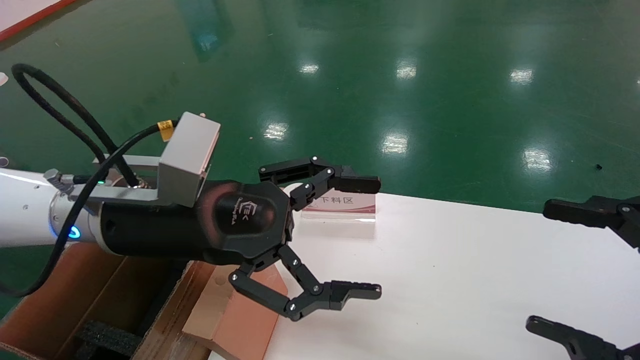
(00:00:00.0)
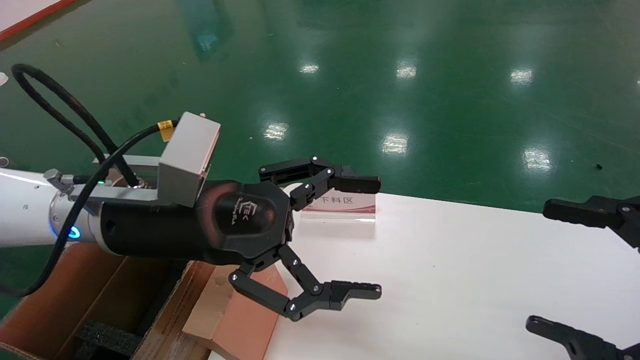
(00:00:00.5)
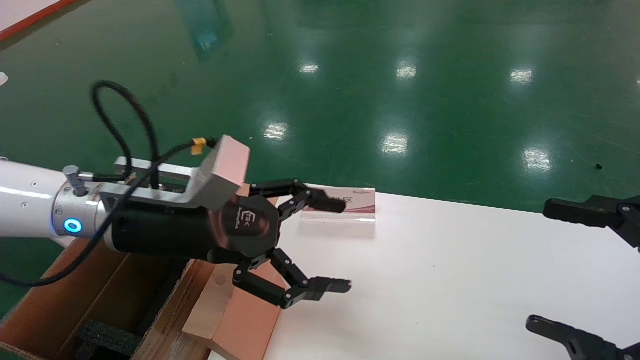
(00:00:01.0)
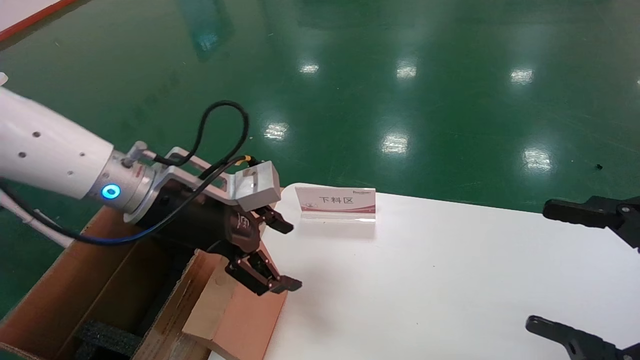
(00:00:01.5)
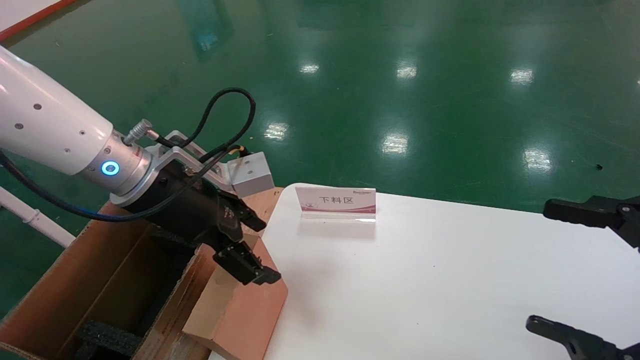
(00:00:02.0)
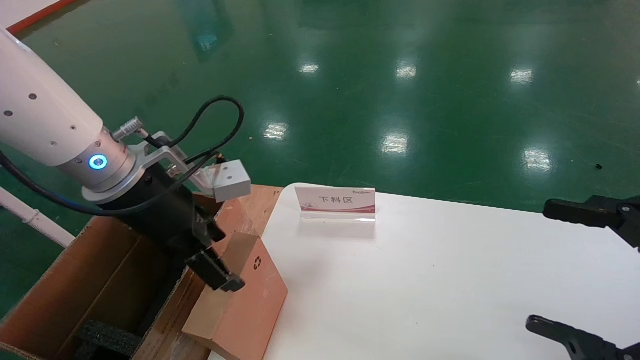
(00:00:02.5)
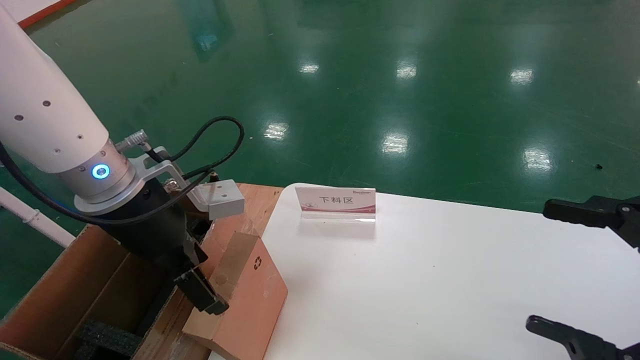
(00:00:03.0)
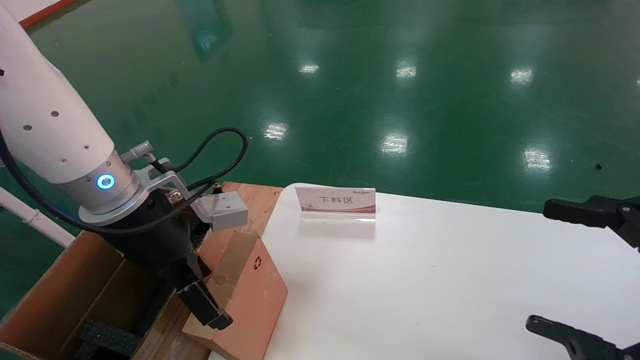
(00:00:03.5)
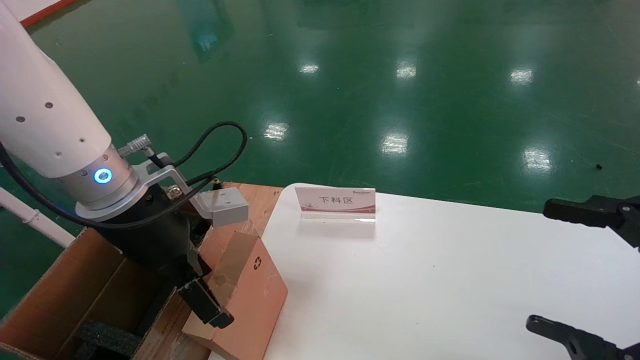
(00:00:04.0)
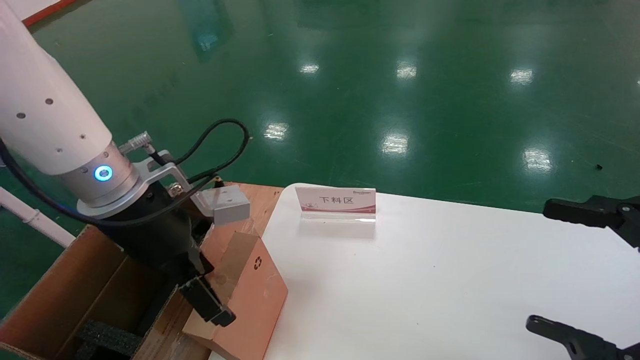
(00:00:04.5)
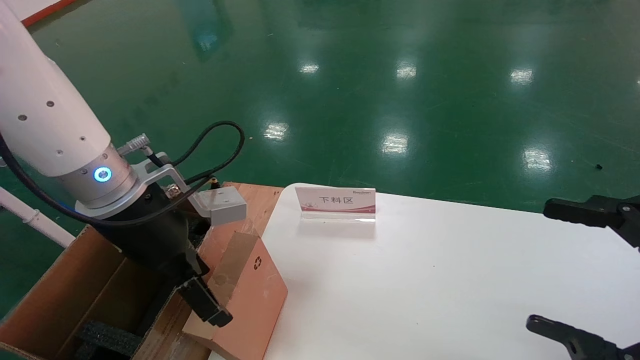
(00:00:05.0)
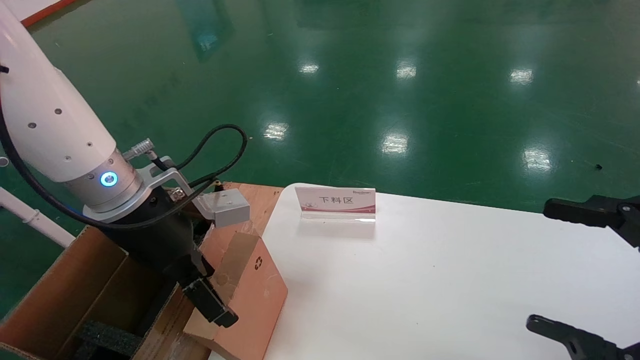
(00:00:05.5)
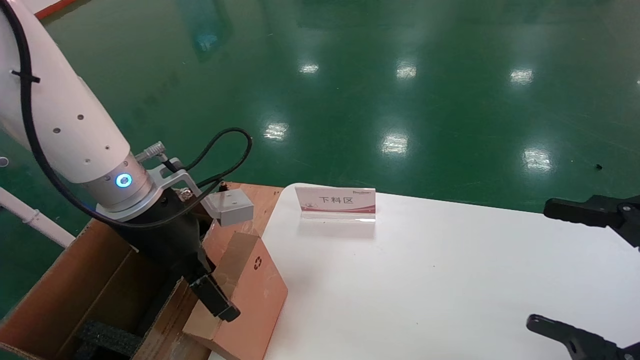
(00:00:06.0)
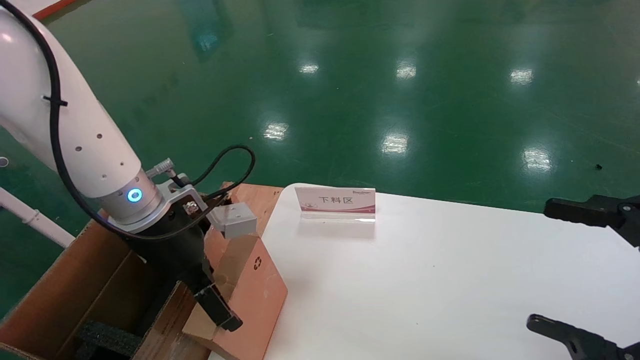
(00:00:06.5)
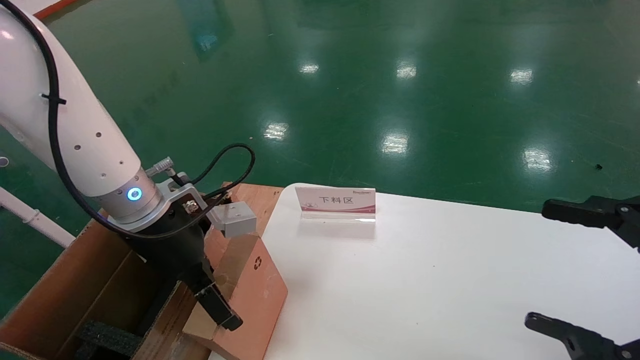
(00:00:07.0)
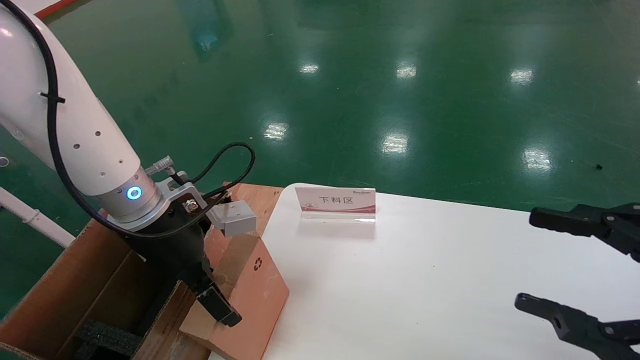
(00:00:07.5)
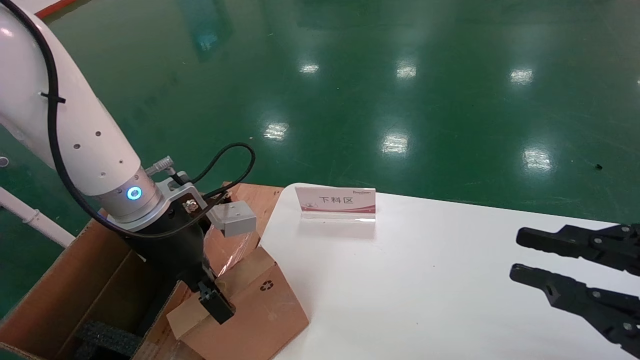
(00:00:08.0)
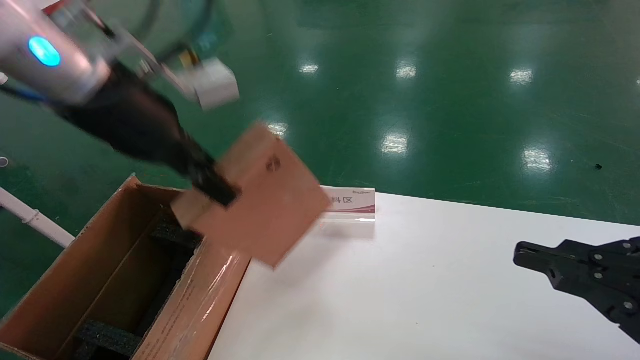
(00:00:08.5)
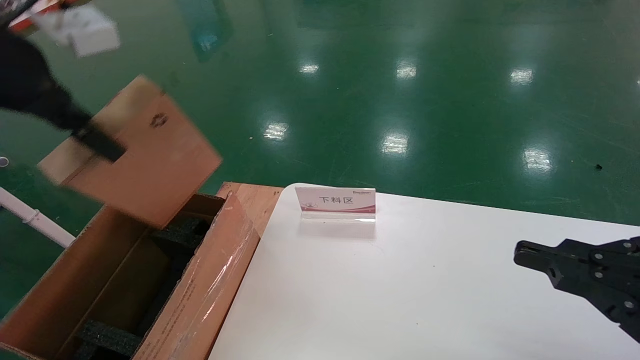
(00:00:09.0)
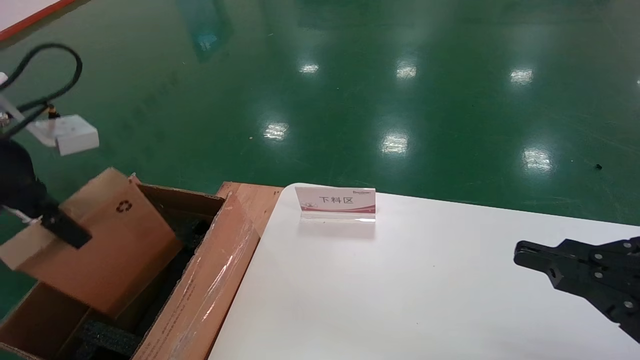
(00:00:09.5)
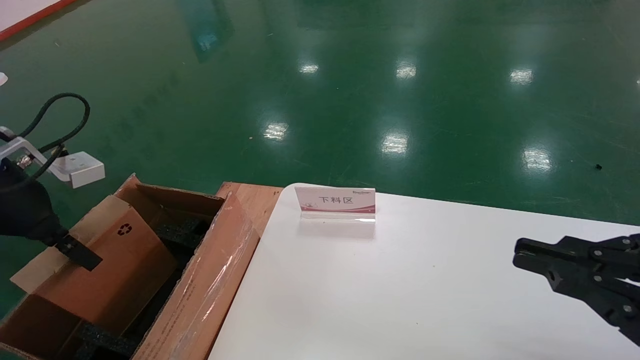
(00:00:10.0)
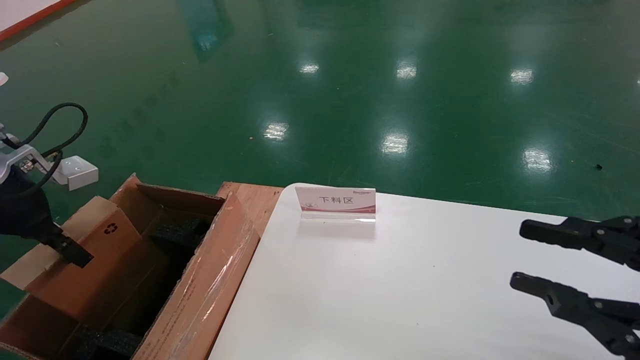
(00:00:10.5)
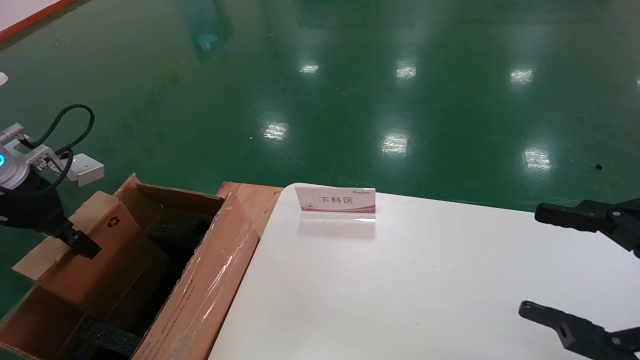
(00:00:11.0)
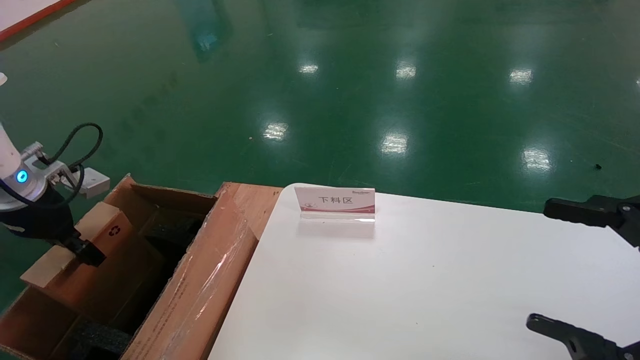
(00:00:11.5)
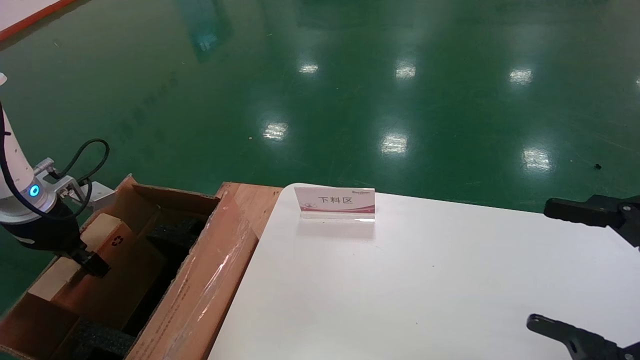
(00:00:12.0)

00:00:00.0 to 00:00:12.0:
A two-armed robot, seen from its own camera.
Task of the whole recording: pick up the small cardboard box and load it into the large cardboard box.
Step, 00:00:01.5 to 00:00:08.5: Pick up the mouse and power cord box.
00:00:00.0 to 00:00:02.0: The left gripper shifts approximately 5 cm forward.
00:00:04.0 to 00:00:06.0: The grippers stay close to where they were, moving slightly.
00:00:06.0 to 00:00:08.0: The right gripper closes its fingers. Meanwhile the left gripper closes up.
00:00:08.0 to 00:00:10.0: The left gripper is displaced to the left by approximately 15 cm.
00:00:10.0 to 00:00:12.0: The right gripper opens its fingers; the left gripper is displaced downward, forward and to the left by roughly 15 cm.

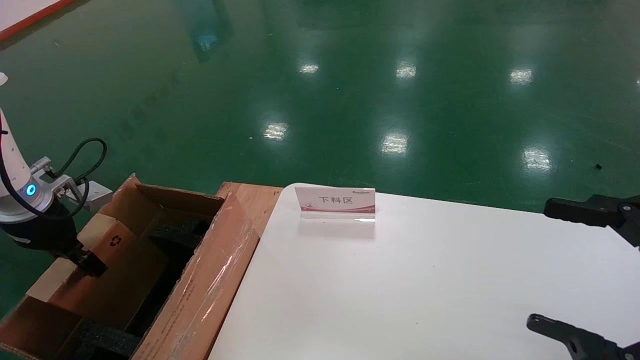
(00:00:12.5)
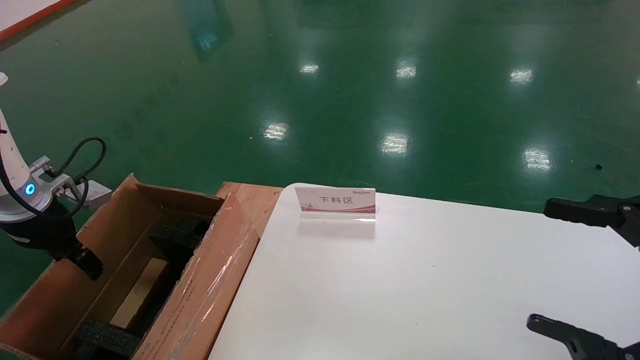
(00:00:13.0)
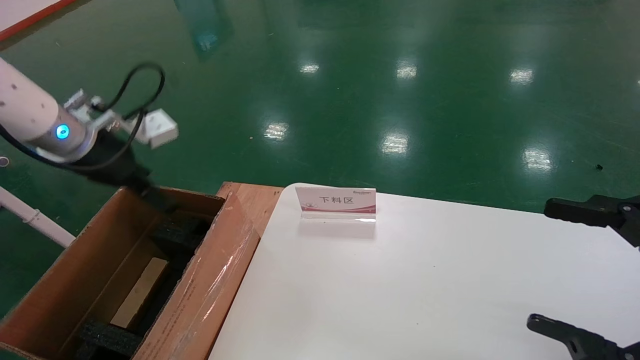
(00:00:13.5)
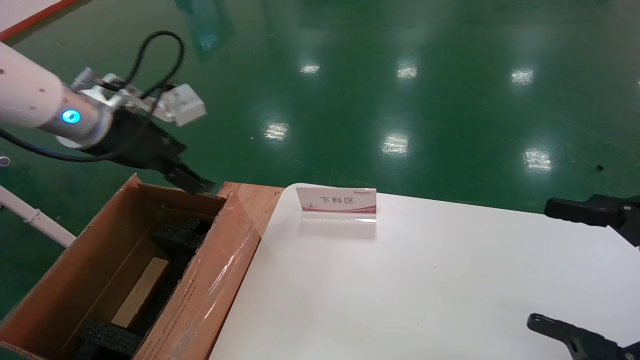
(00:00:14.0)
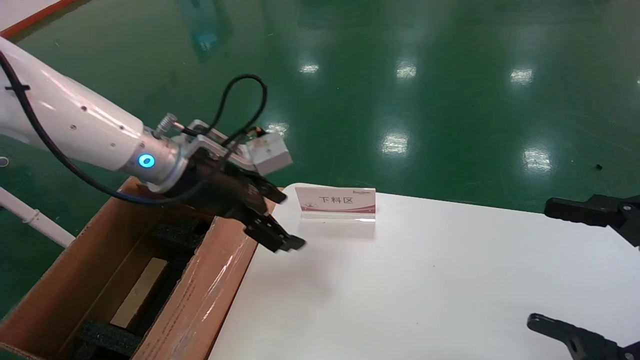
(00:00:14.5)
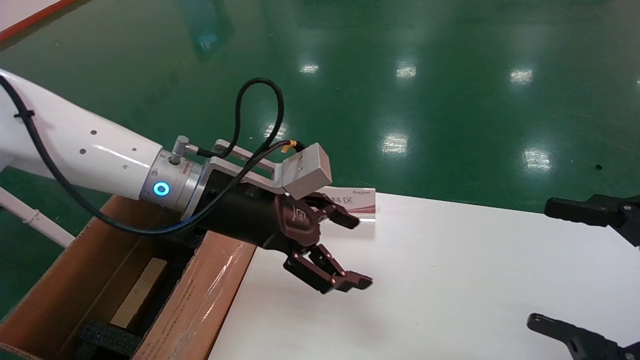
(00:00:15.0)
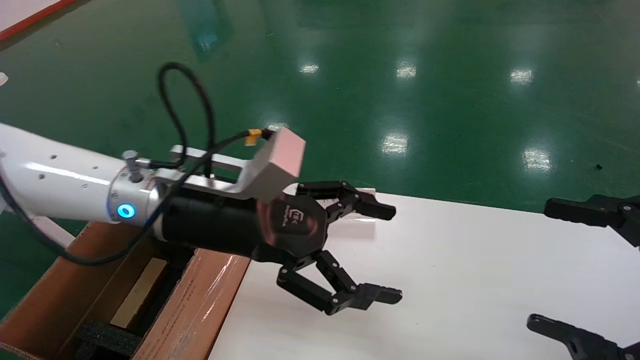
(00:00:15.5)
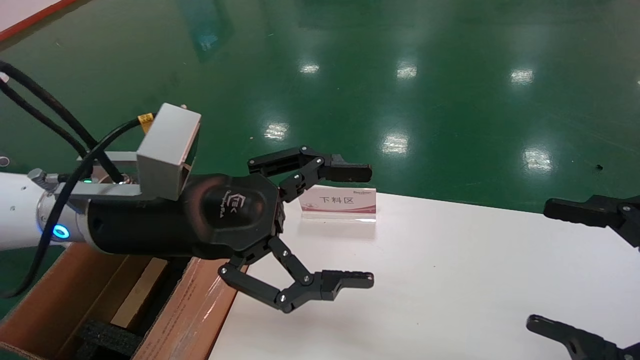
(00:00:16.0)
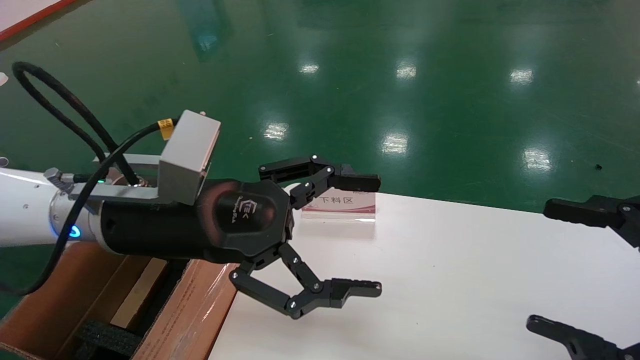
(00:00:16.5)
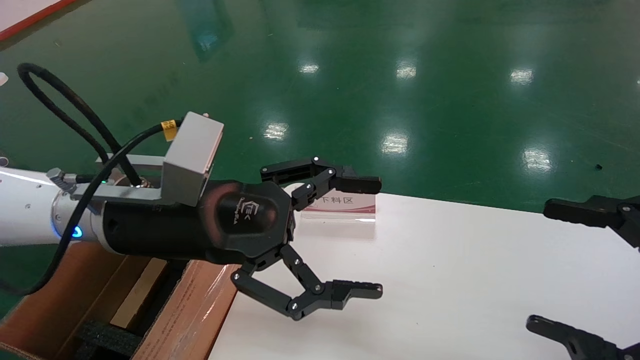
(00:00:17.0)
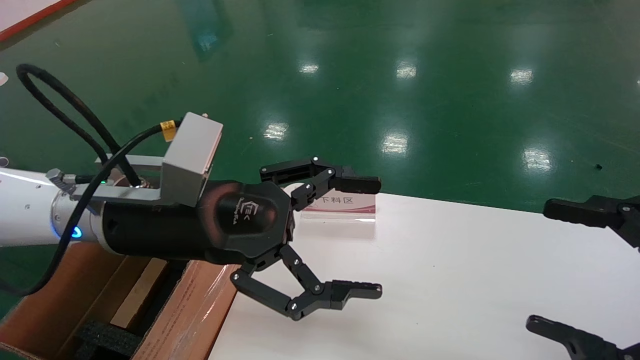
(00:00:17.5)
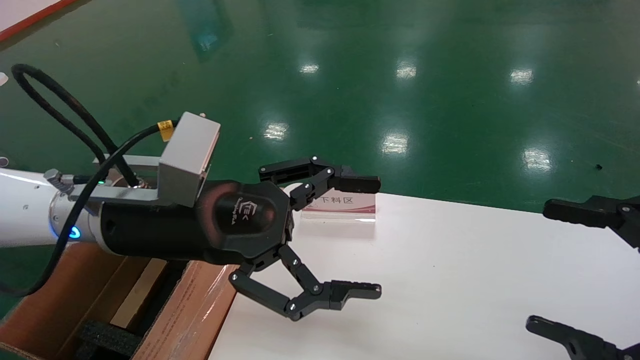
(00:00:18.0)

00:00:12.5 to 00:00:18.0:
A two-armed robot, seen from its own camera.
Task of the whole recording: pick up the small cardboard box and load it into the large cardboard box.
00:00:12.5 to 00:00:14.5: The left gripper travels to the right by roughly 25 cm, and opens its fingers.
00:00:14.5 to 00:00:16.0: The left gripper moves backward, roughly 10 cm.
00:00:16.0 to 00:00:18.0: The two grippers keep their place.
